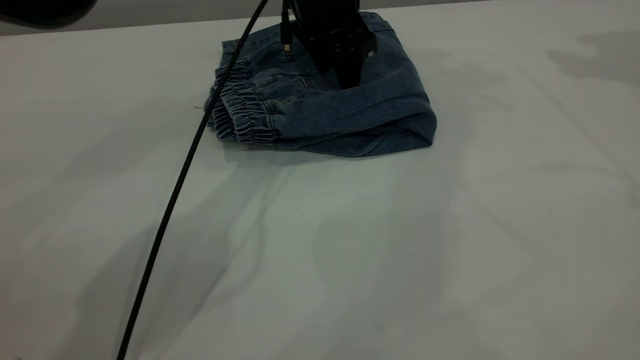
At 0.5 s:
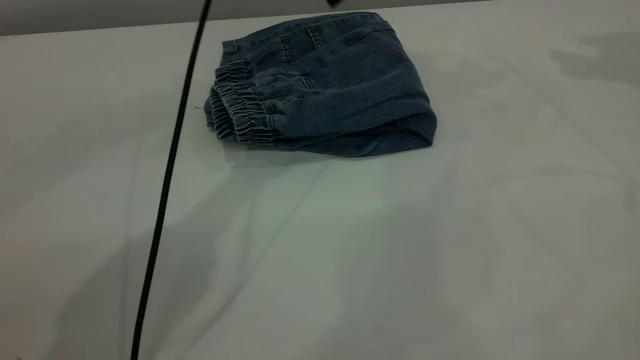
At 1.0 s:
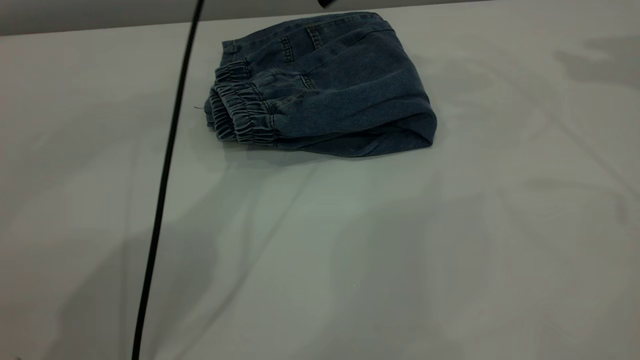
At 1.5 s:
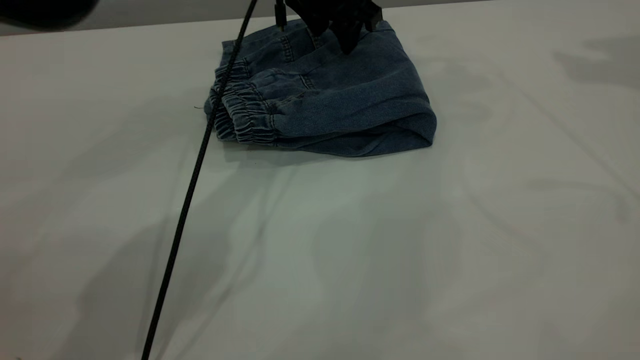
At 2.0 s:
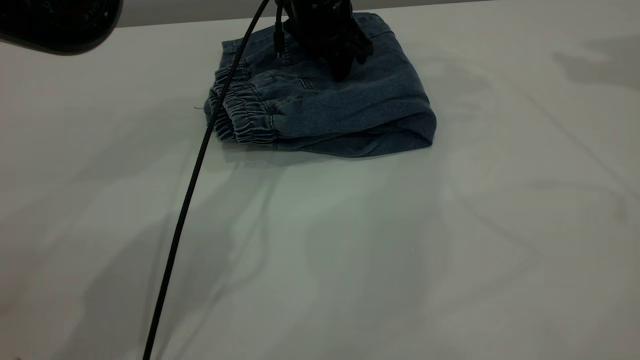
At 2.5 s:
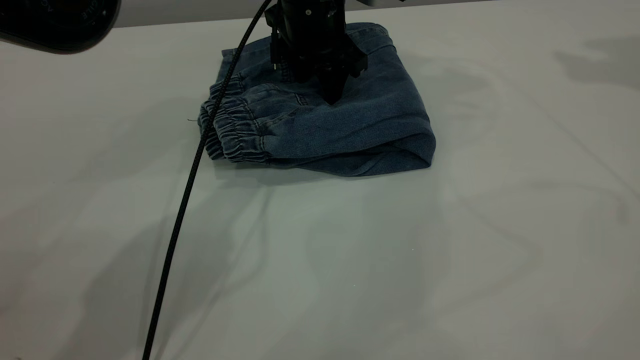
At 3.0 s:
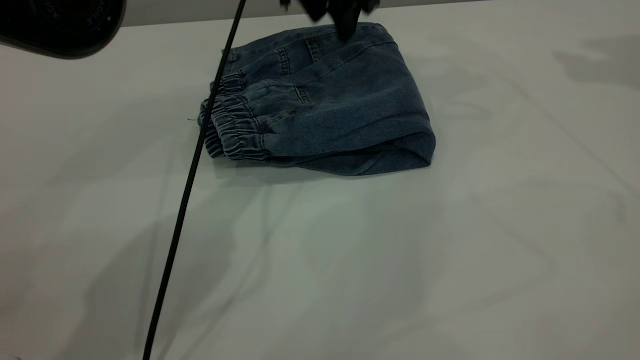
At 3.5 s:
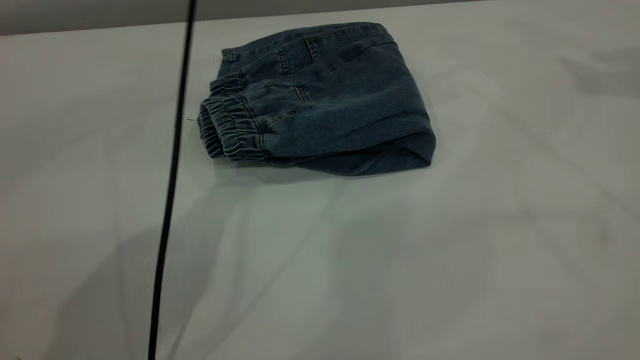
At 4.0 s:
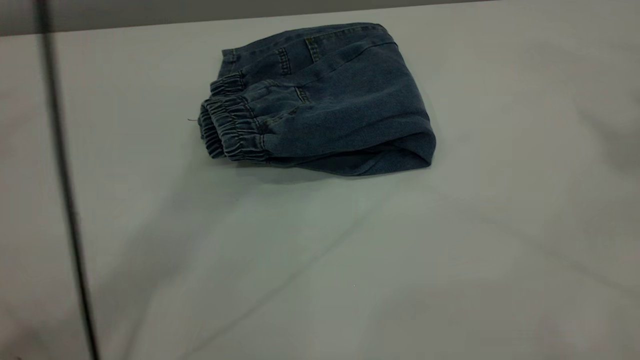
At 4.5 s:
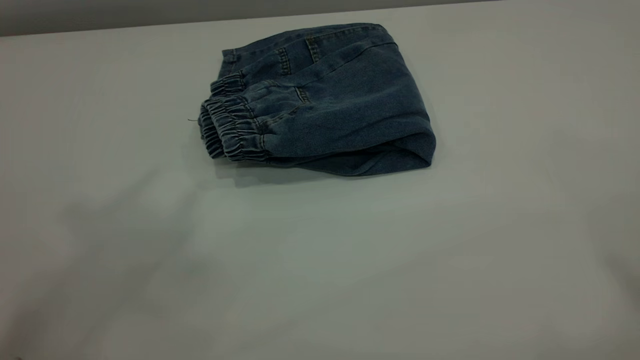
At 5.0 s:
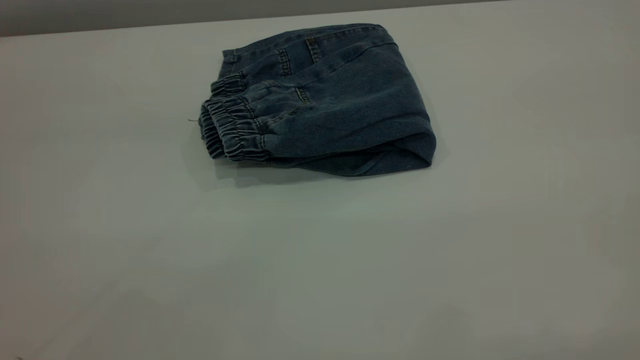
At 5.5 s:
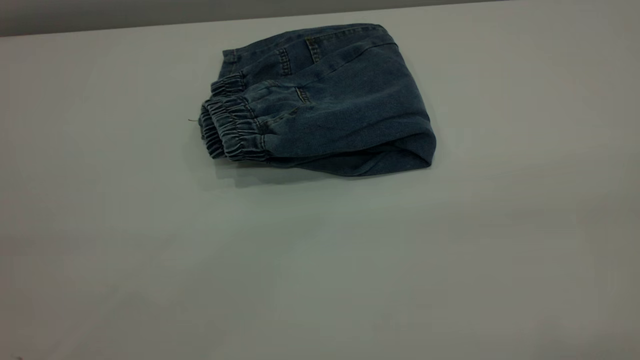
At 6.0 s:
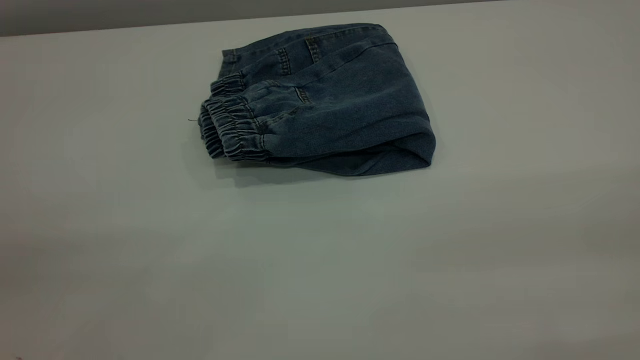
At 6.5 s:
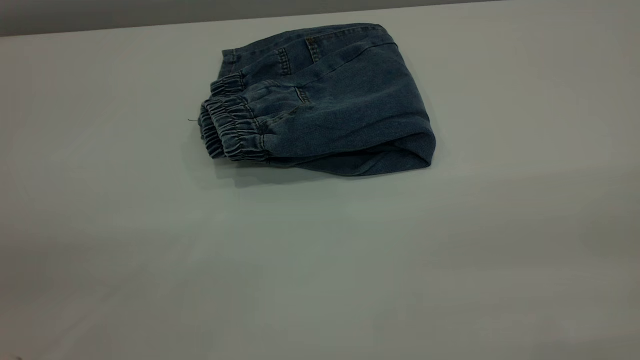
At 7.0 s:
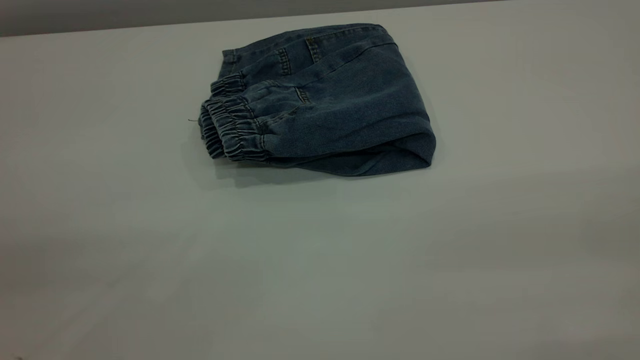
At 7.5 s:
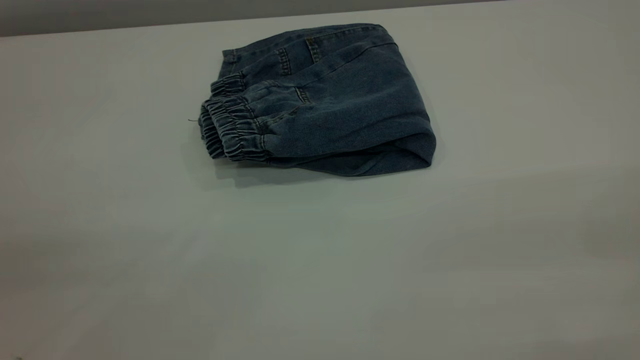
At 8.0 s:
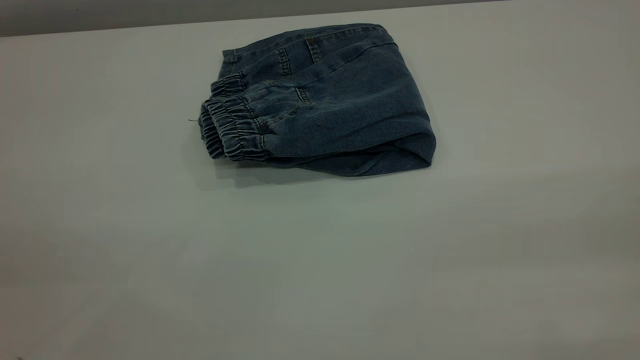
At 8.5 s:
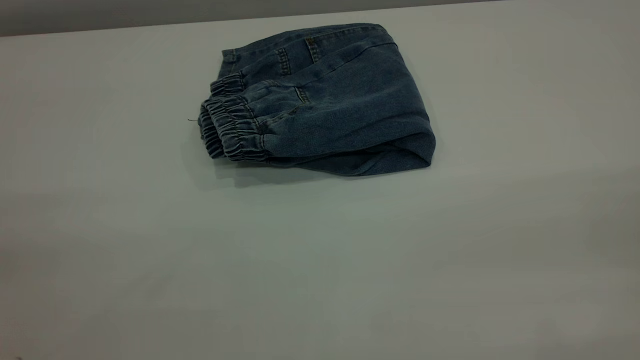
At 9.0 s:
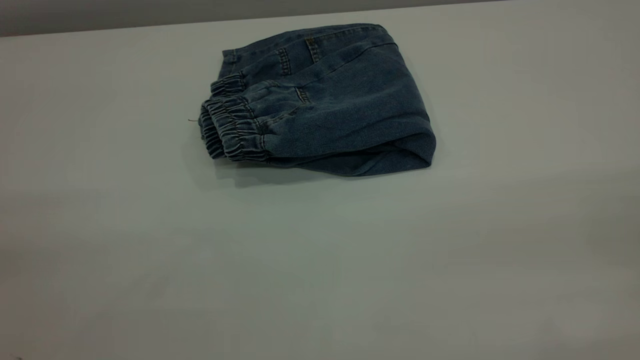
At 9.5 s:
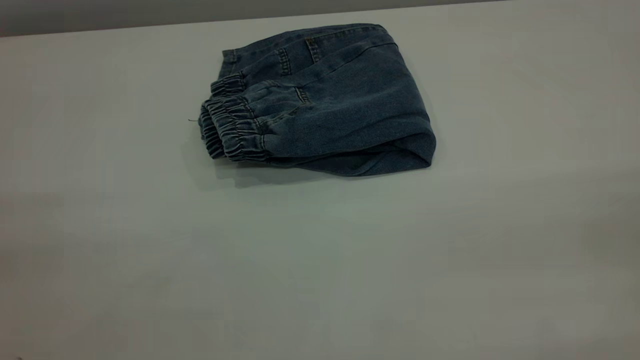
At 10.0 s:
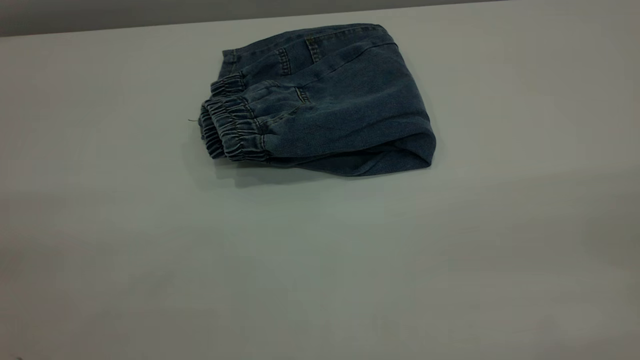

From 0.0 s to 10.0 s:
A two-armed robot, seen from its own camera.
From 0.0 s to 2.0 s: The left gripper reaches approximately 10 cm upward, then returns.
From 2.0 s to 4.0 s: The right gripper moves upward and backward, approximately 25 cm; the left gripper goes some 40 cm upward.
From 4.0 s to 6.0 s: The left gripper heads backward, to the left and downward, covering some 40 cm.

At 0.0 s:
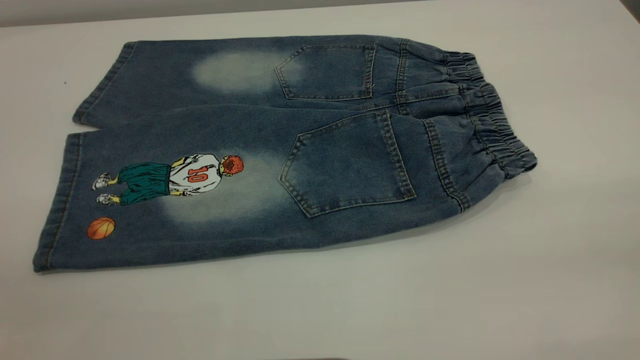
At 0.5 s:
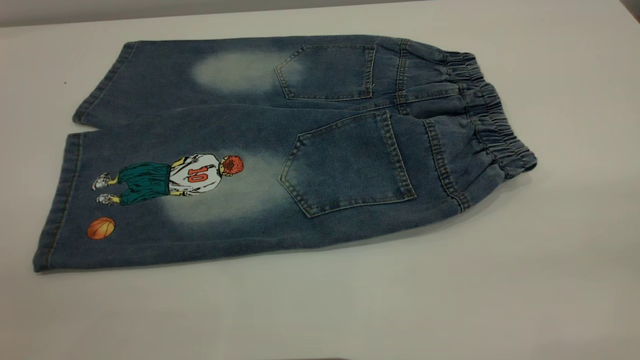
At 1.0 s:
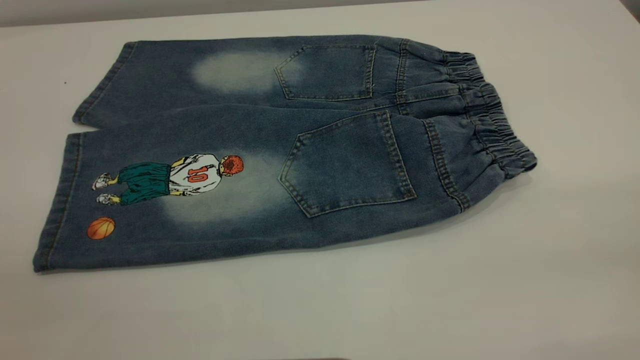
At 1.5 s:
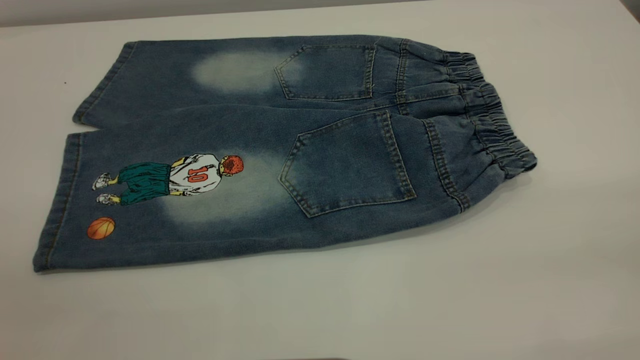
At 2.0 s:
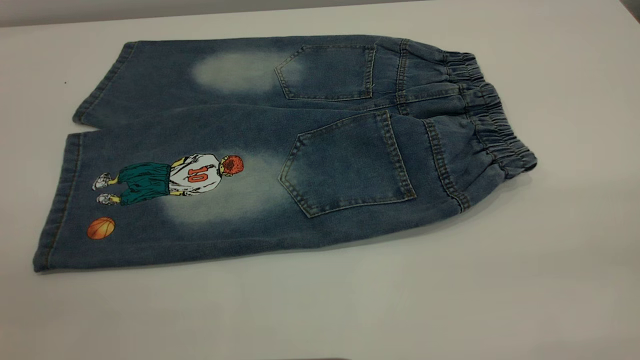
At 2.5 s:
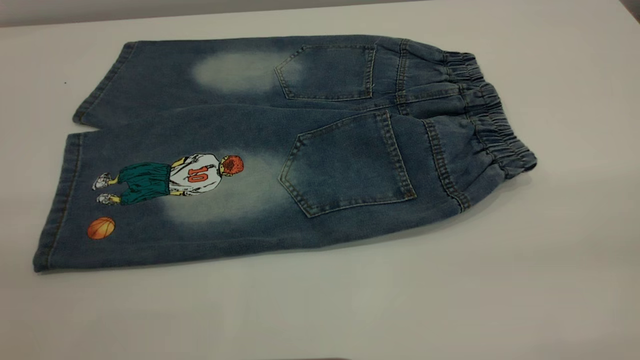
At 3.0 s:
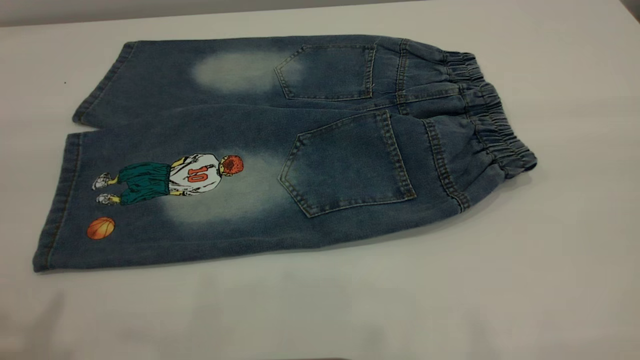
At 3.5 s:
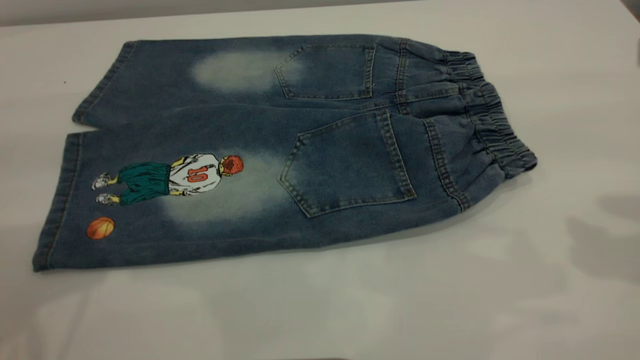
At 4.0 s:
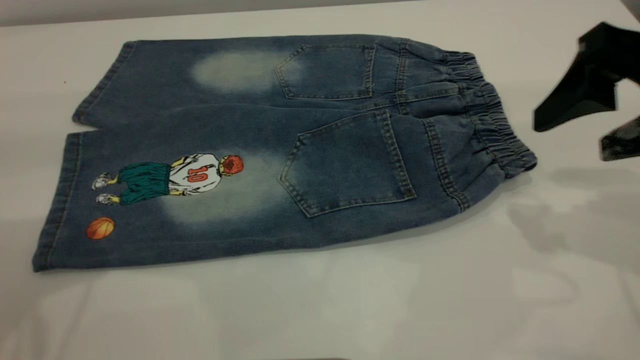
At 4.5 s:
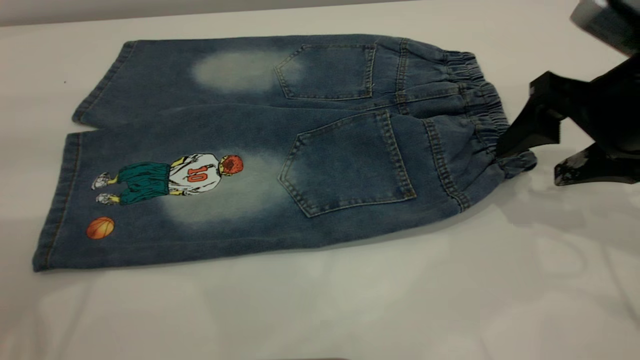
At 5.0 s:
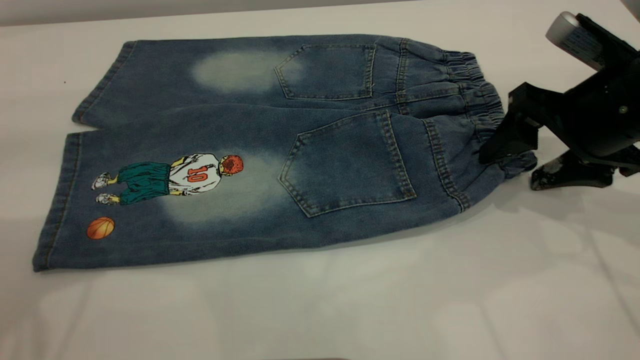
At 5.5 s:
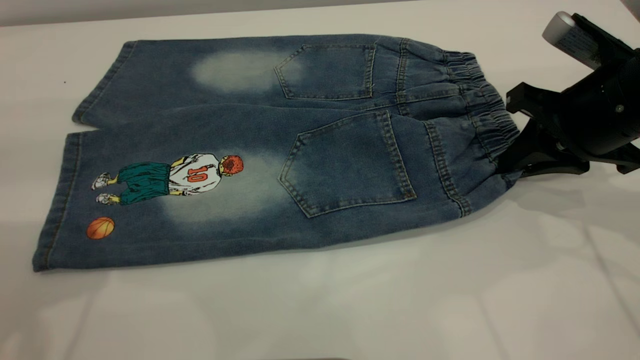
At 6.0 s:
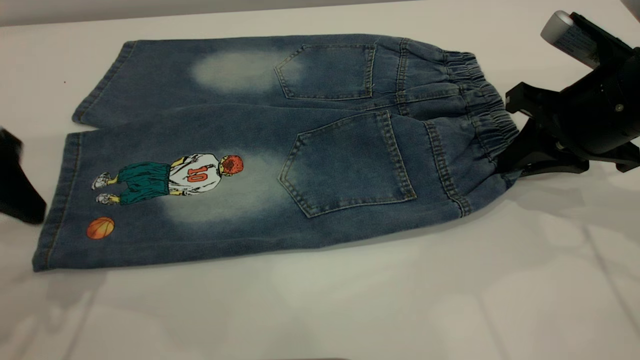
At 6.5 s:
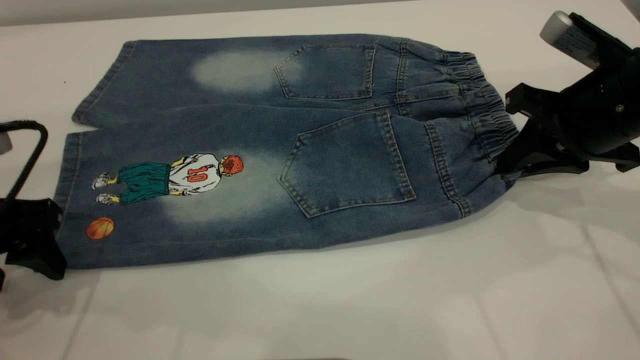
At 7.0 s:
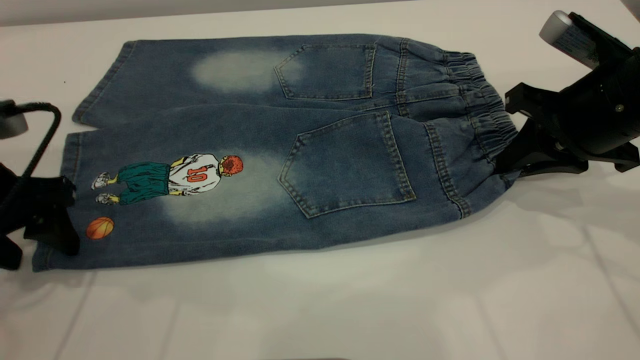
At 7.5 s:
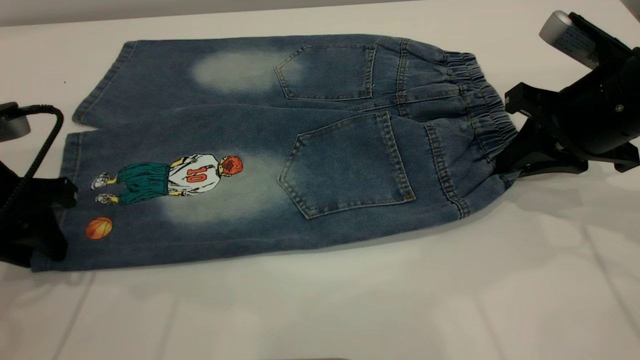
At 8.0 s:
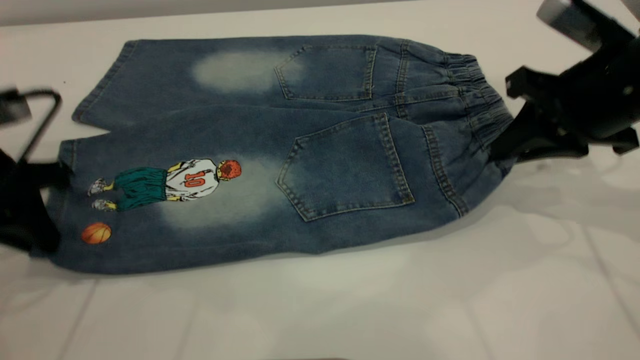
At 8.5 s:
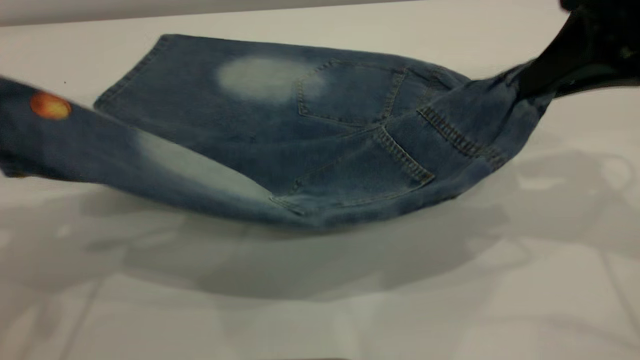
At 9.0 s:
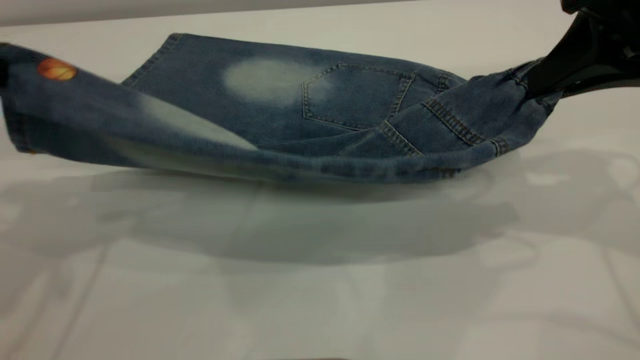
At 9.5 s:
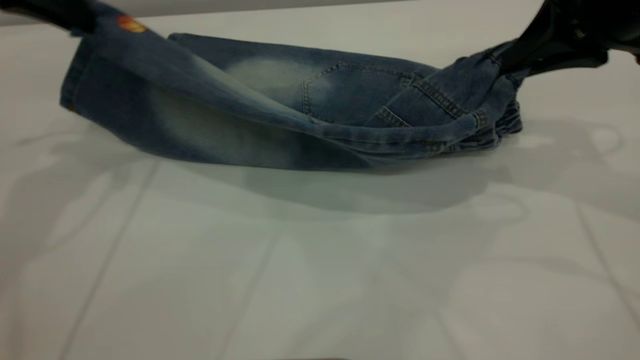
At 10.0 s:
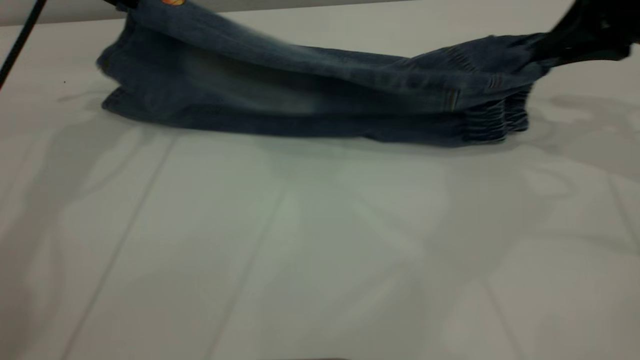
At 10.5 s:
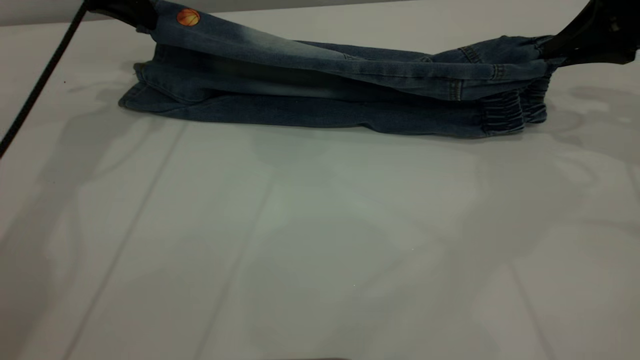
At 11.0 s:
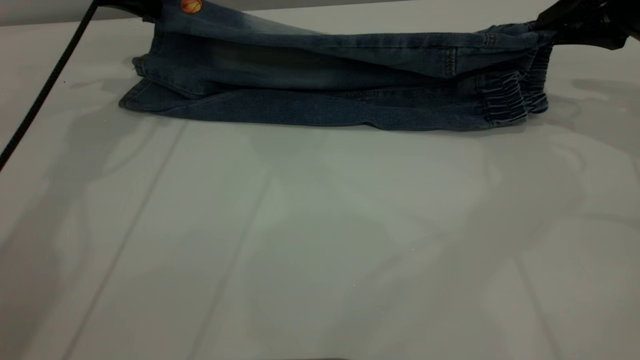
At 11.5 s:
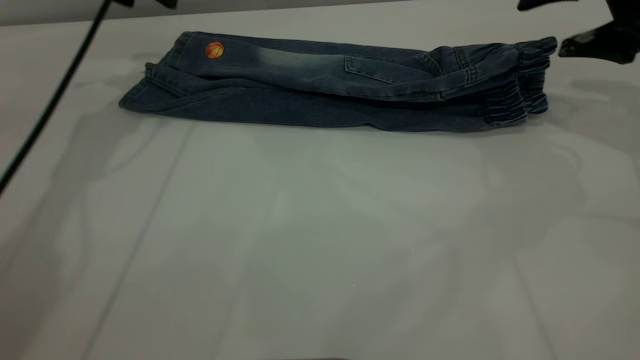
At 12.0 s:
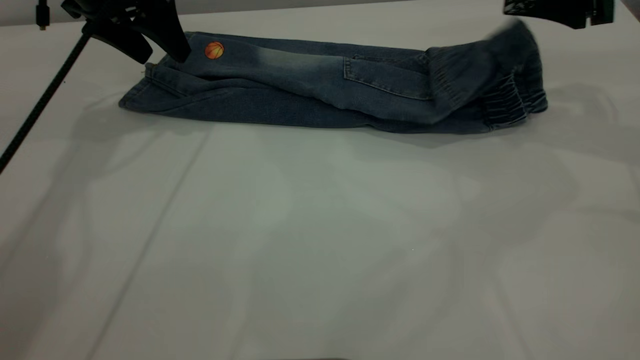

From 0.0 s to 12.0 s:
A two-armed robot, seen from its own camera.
Step, from 0.0 s to 11.0 s: Fold the bottom of the pants upward.
From 0.0 s to 2.0 s: Both grippers stay put.
From 2.0 s to 4.0 s: The right gripper travels forward and downward by about 30 cm, and opens.
From 4.0 s to 6.0 s: The right gripper goes approximately 10 cm downward and forward, and closes its fingers. The left gripper is displaced downward by about 10 cm.
From 6.0 s to 8.0 s: The left gripper closes.
From 8.0 s to 10.0 s: The left gripper goes some 20 cm forward and upward, while the right gripper is displaced to the right and forward by roughly 10 cm.
From 10.0 s to 12.0 s: The left gripper moves roughly 5 cm, and opens up. Meanwhile the right gripper opens.
